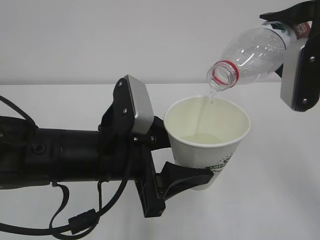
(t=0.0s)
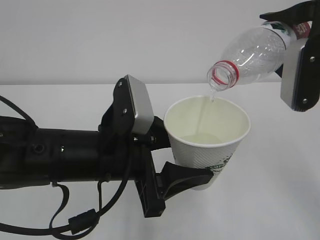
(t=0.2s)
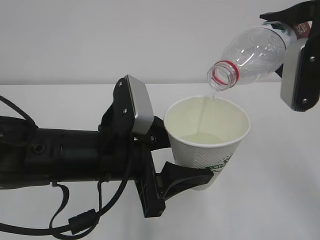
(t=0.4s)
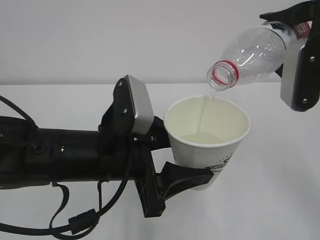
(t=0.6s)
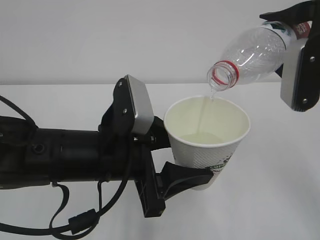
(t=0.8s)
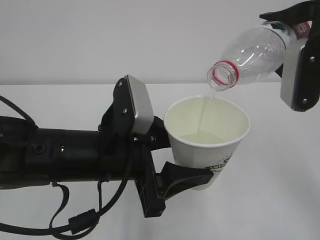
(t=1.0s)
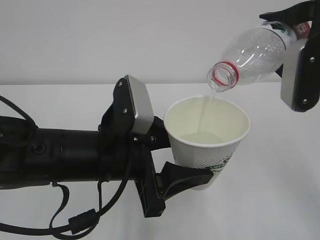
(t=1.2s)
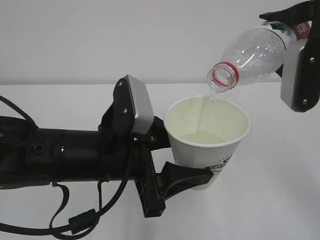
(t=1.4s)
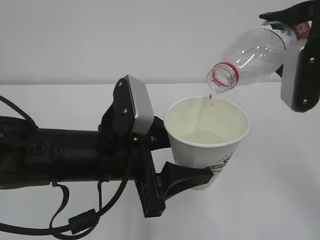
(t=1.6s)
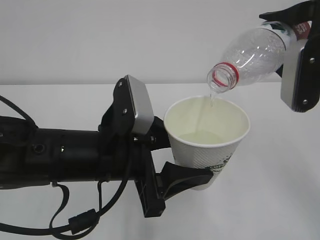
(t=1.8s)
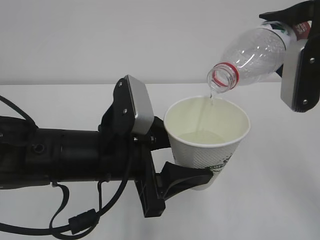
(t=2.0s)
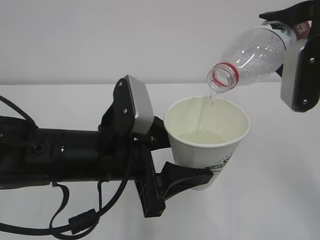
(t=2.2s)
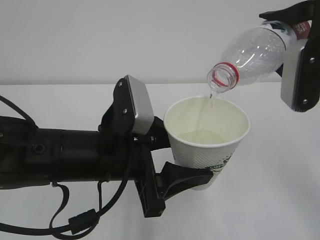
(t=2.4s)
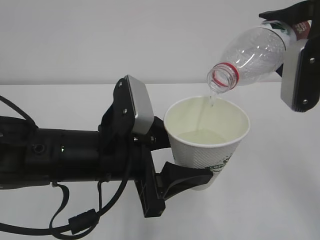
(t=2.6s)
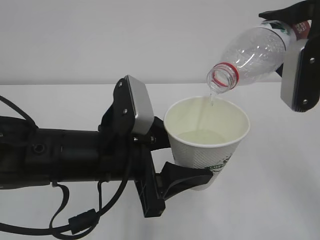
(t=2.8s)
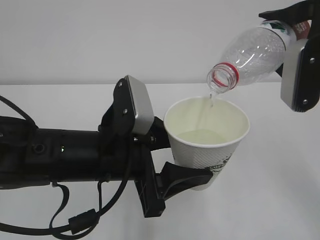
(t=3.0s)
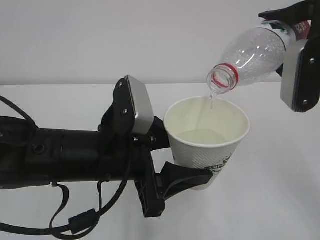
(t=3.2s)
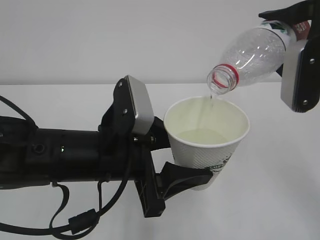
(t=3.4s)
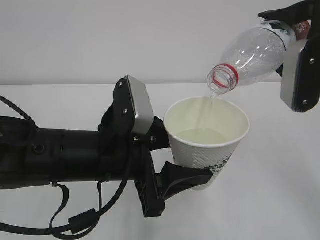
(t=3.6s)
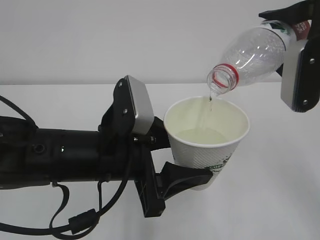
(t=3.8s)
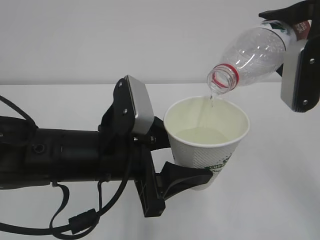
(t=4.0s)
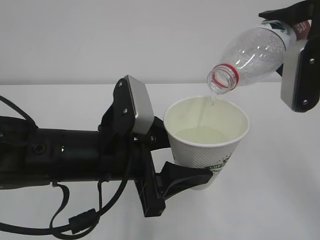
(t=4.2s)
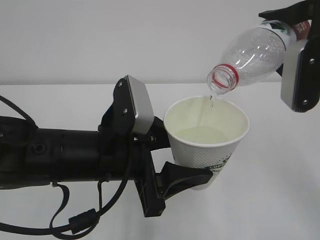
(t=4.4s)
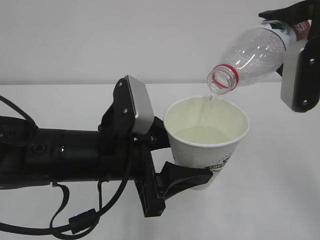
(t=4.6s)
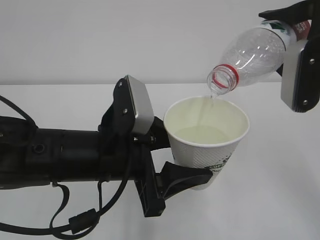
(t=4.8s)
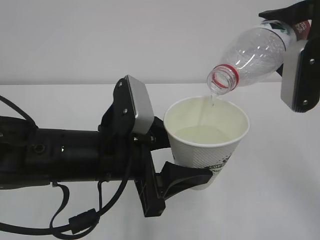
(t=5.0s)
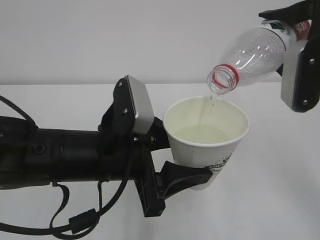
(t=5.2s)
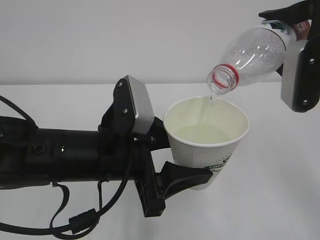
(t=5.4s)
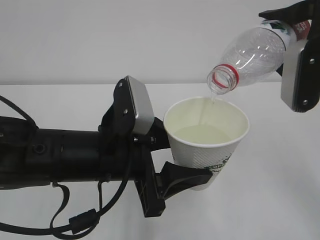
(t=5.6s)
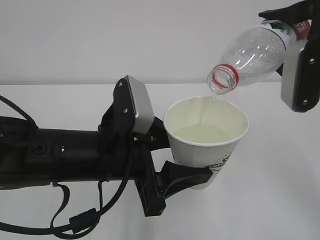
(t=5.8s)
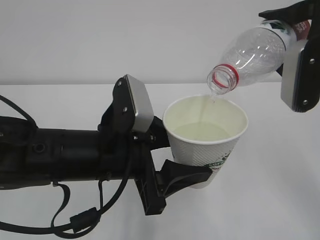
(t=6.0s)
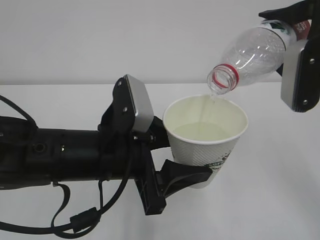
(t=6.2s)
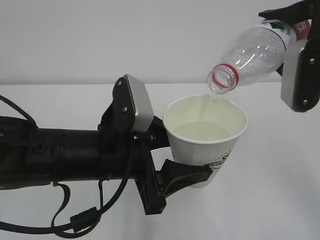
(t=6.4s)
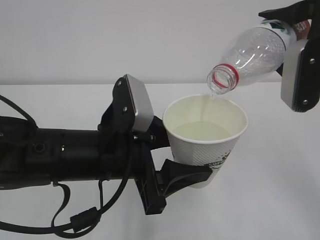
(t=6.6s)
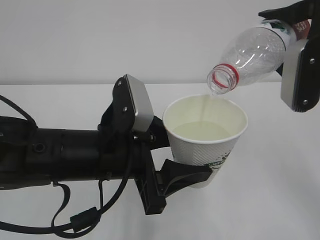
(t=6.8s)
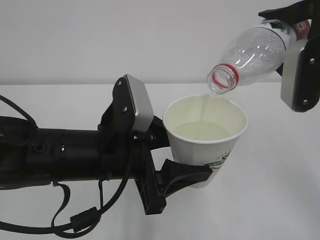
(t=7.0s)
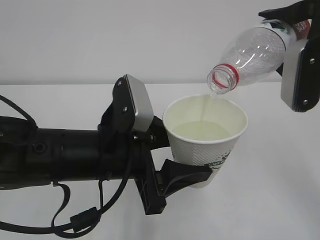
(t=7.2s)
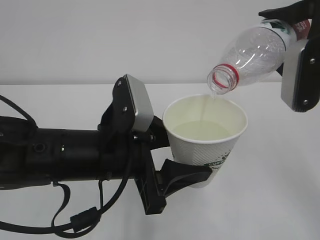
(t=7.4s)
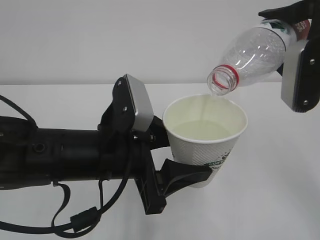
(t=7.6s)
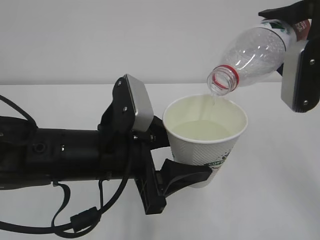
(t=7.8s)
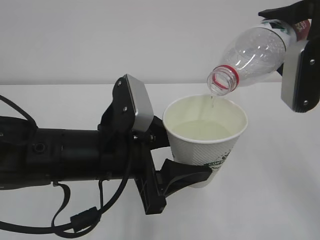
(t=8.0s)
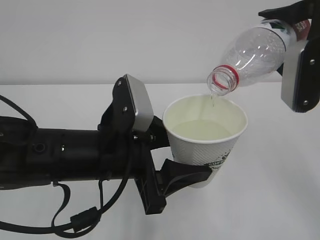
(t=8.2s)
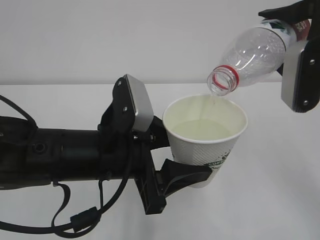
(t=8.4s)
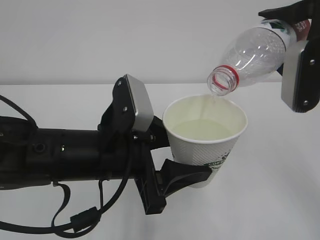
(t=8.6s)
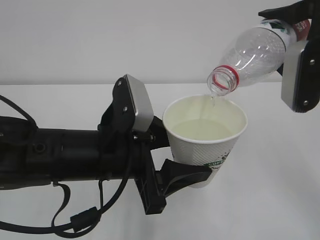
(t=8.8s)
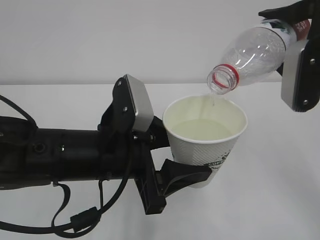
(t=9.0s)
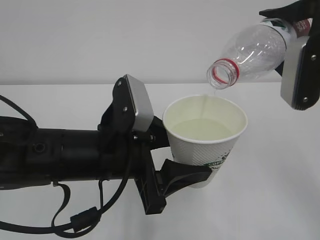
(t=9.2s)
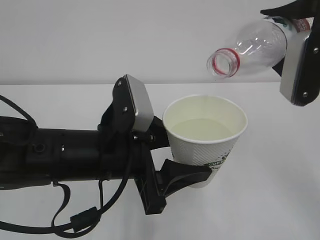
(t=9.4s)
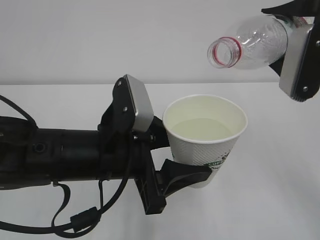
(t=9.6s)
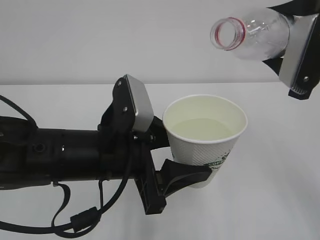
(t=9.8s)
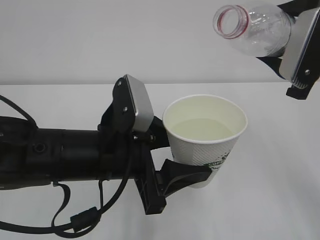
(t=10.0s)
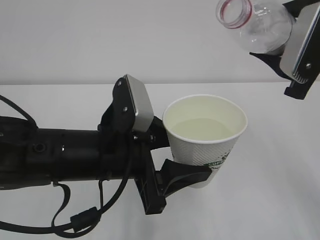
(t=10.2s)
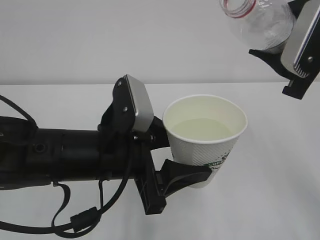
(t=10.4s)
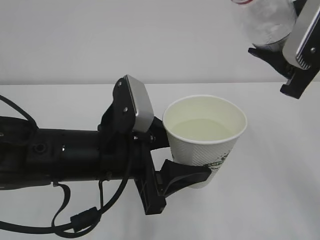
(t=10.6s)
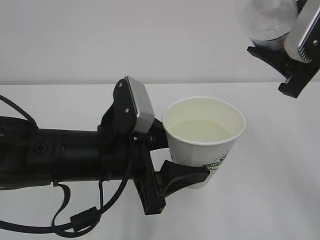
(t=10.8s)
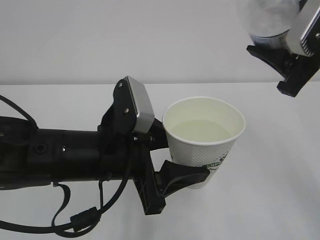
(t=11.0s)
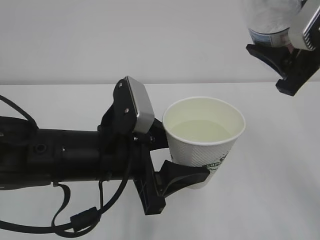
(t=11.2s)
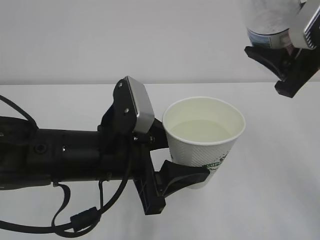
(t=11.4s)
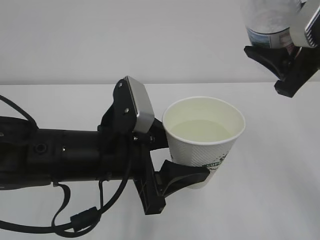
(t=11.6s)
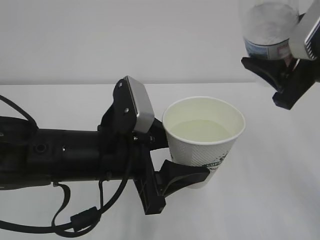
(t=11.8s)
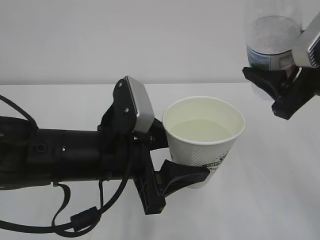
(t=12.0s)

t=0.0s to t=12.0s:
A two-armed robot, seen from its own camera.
t=0.0s to t=9.0s: Neither gripper changes place.

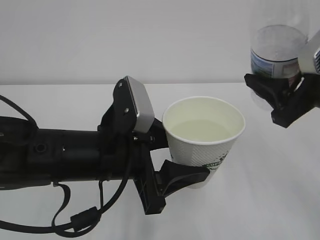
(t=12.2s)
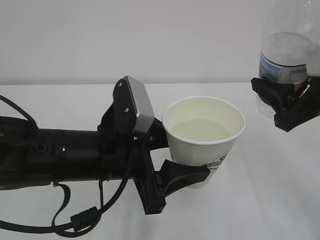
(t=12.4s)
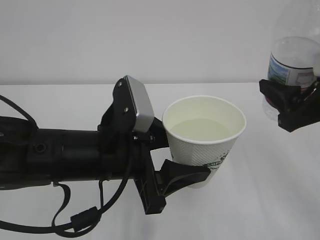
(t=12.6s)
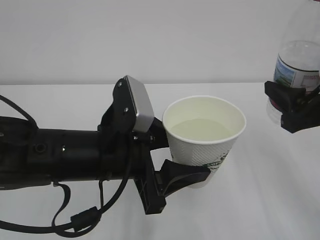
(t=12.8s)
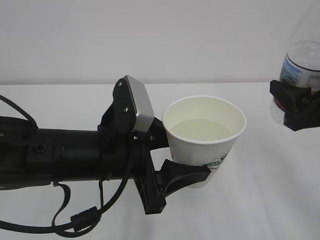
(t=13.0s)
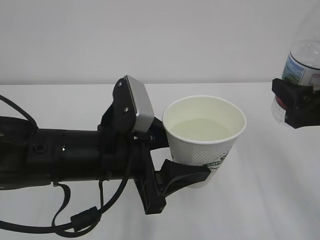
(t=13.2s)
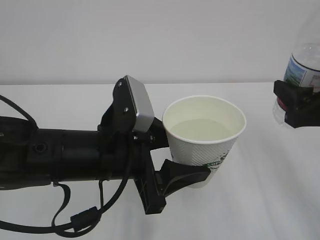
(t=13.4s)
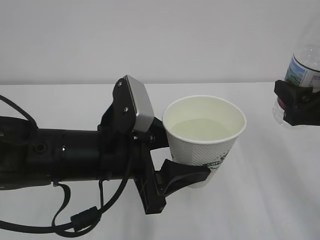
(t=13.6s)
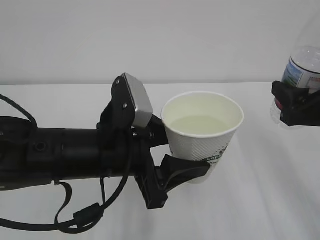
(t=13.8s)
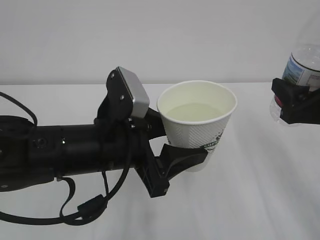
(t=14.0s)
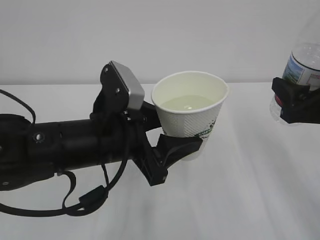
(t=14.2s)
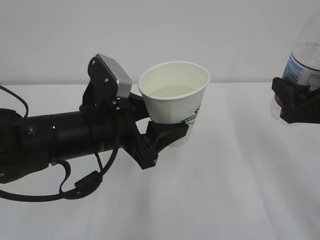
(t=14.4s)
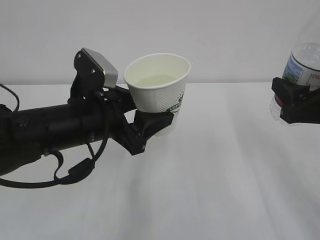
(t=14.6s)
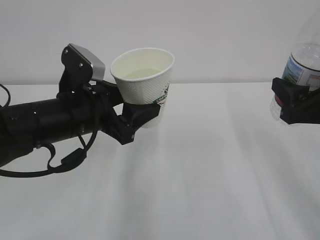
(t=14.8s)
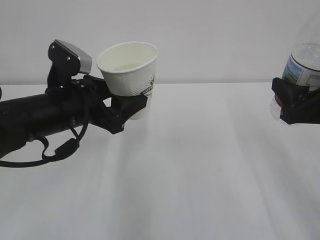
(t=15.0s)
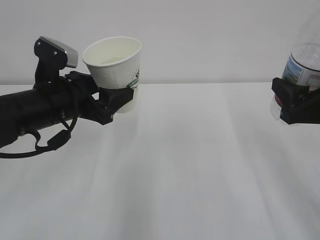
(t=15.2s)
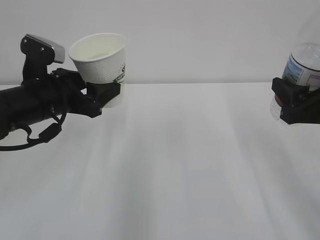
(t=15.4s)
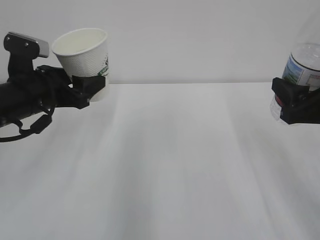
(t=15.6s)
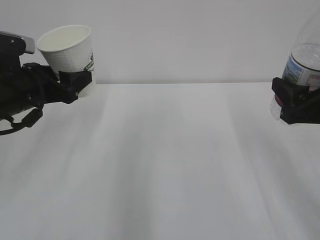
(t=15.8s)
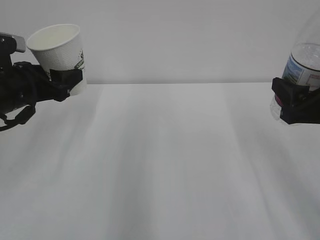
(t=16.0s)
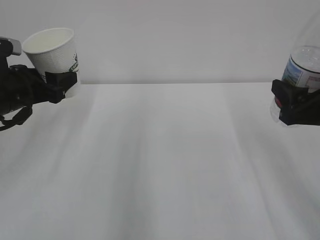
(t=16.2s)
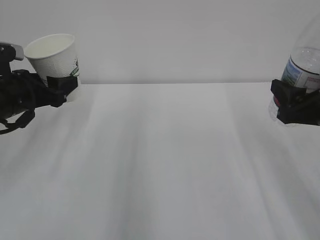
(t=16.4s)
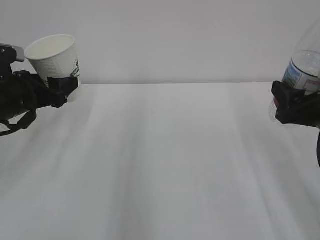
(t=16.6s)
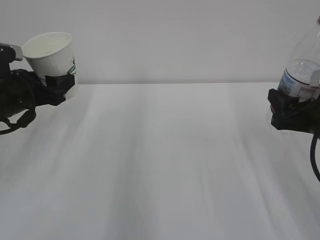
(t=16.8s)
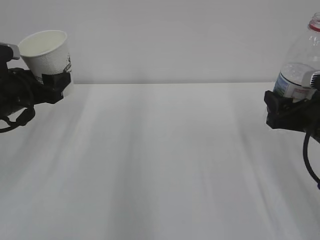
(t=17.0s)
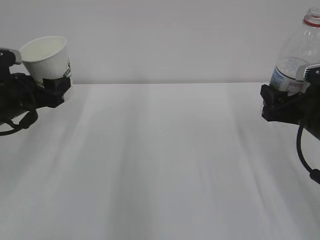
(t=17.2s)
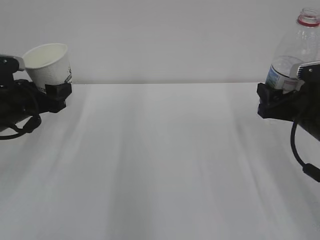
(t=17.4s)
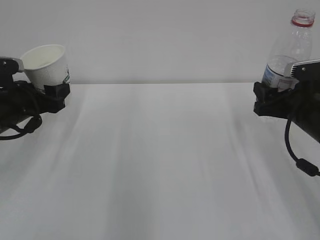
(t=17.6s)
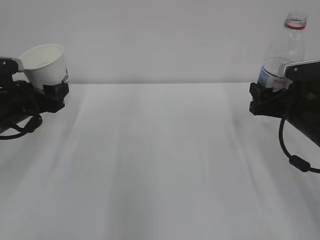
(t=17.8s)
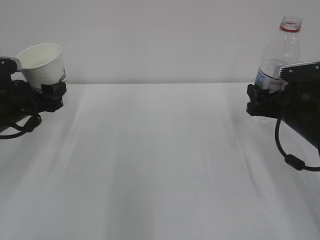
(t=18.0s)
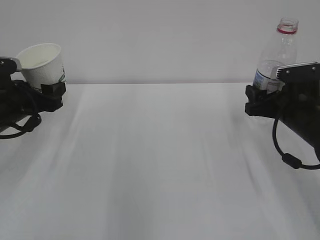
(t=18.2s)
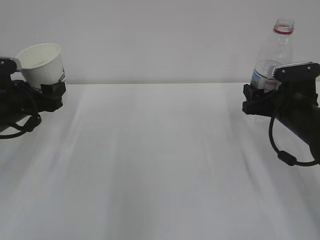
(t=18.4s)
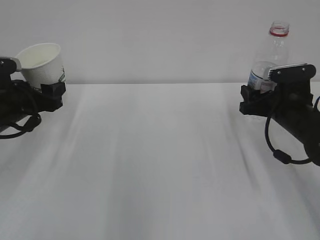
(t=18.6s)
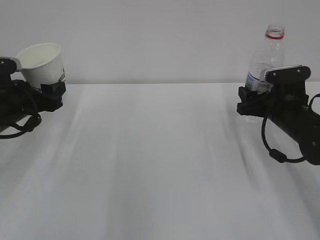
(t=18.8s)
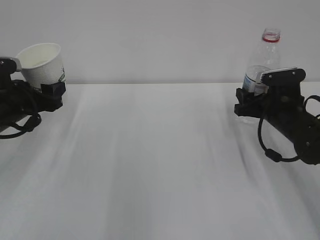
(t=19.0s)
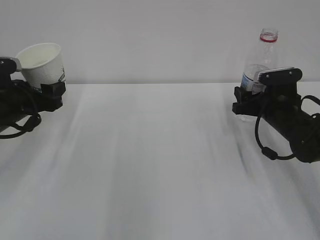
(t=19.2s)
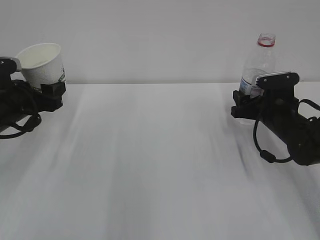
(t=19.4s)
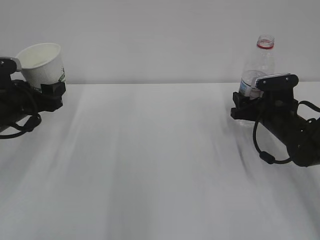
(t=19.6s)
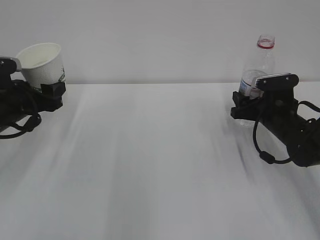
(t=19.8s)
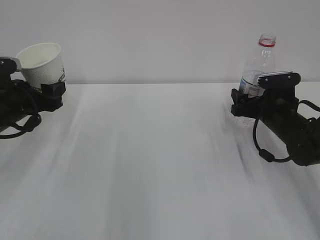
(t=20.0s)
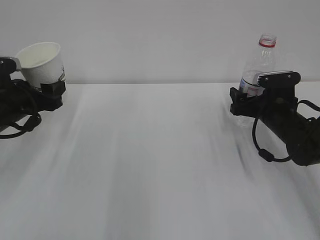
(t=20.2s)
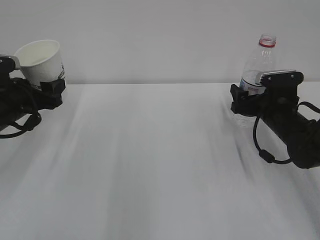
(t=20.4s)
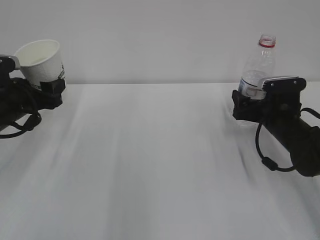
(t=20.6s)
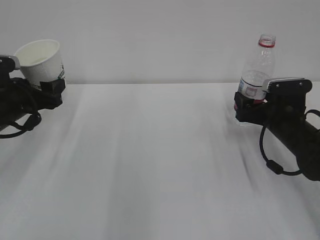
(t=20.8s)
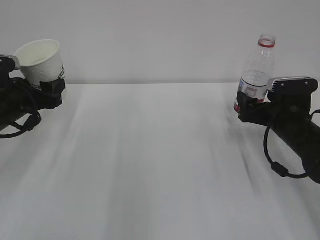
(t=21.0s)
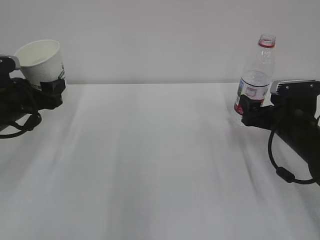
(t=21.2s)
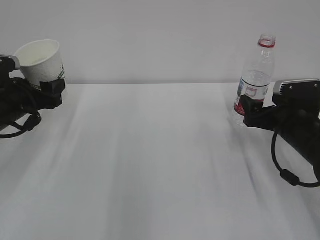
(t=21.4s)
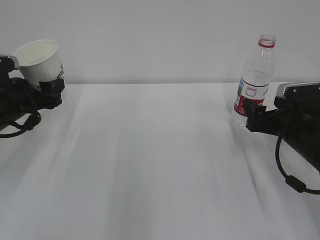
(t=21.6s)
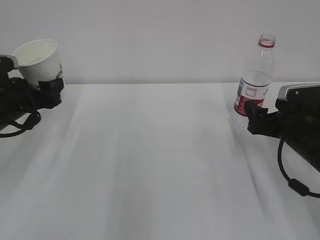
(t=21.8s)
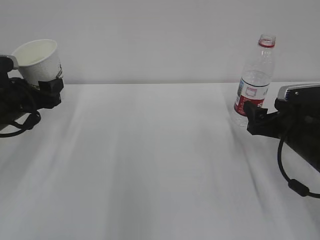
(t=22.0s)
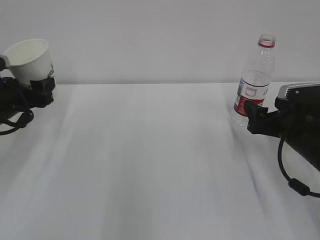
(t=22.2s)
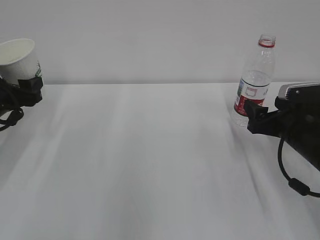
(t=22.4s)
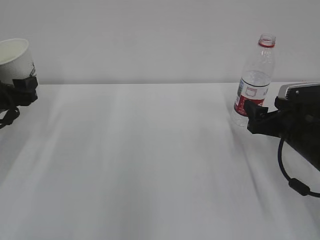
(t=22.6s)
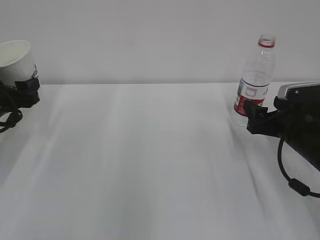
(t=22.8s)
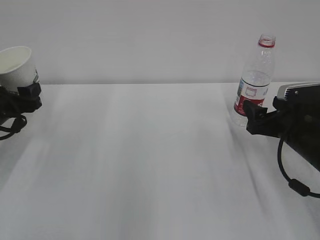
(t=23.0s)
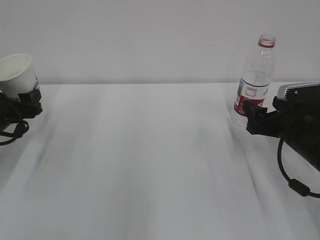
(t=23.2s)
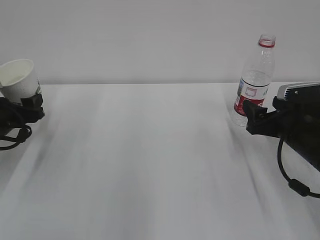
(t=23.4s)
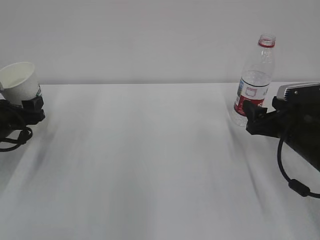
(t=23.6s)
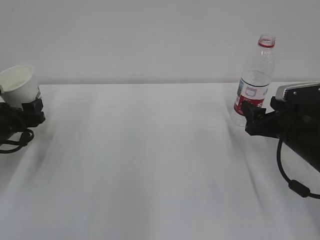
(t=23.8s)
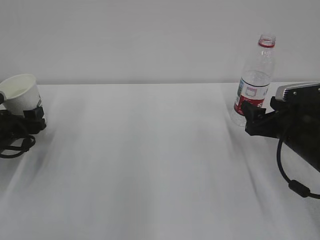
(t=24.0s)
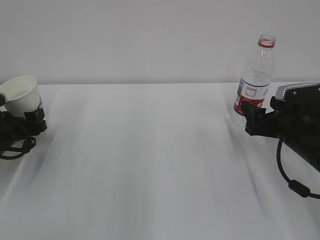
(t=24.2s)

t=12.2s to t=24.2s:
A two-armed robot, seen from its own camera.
t=12.2s to t=13.8s: The right gripper changes place by roughly 5 cm.
t=13.8s to t=15.2s: The left gripper goes roughly 10 cm to the left and forward.
t=15.2s to t=16.6s: The left gripper is displaced to the left by about 10 cm.
t=16.6s to t=18.2s: The right gripper goes some 10 cm forward and downward.
t=18.2s to t=19.8s: The right gripper changes place by about 5 cm.
t=19.8s to t=21.2s: The right gripper shifts by approximately 5 cm, and opens.
t=21.2s to t=22.6s: The grippers move only a little.
t=22.6s to t=24.2s: The left gripper is displaced downward by about 10 cm.
